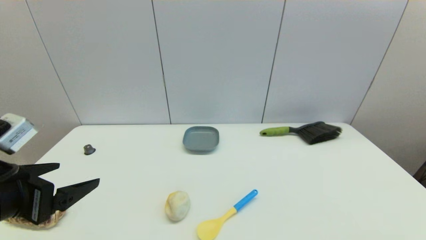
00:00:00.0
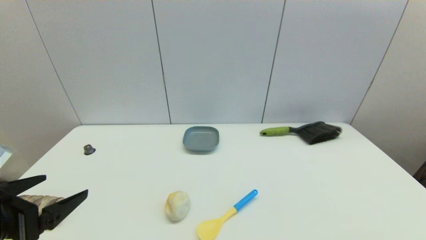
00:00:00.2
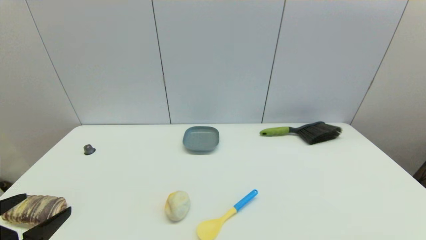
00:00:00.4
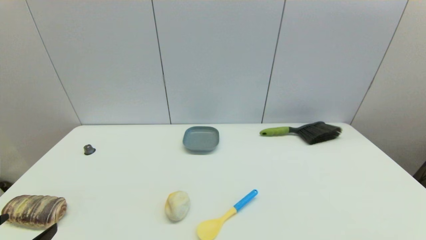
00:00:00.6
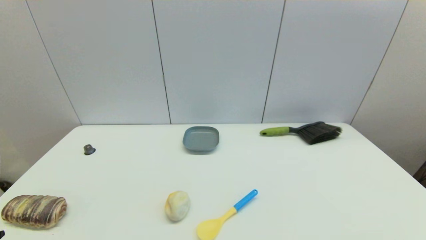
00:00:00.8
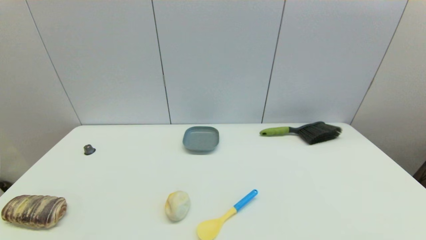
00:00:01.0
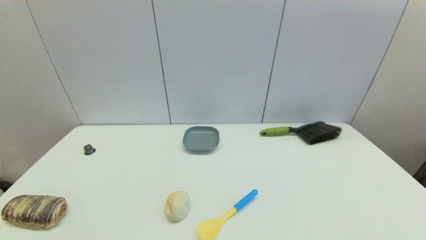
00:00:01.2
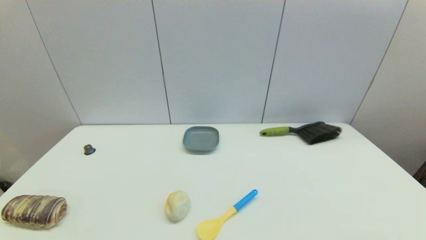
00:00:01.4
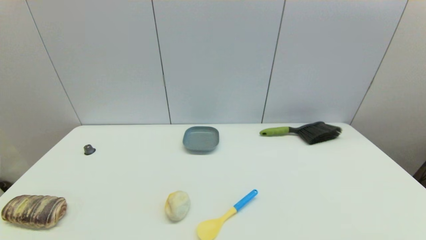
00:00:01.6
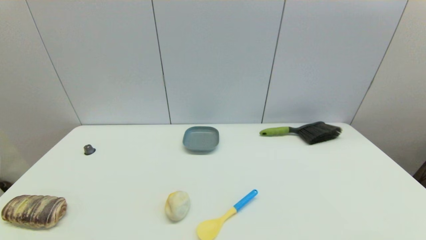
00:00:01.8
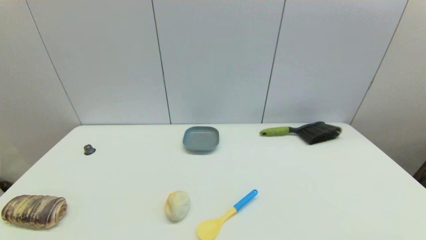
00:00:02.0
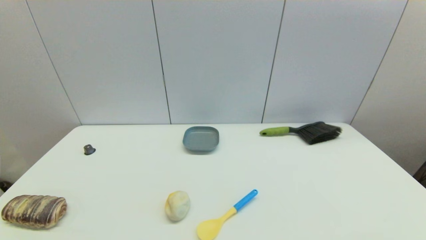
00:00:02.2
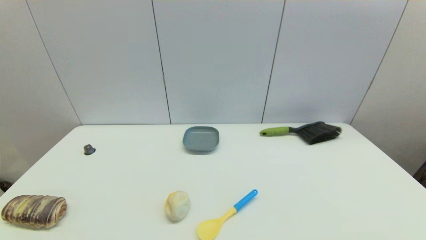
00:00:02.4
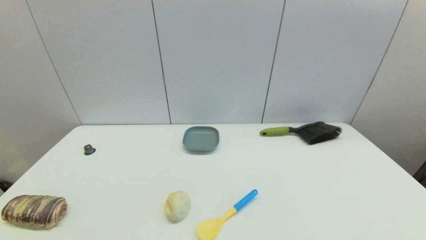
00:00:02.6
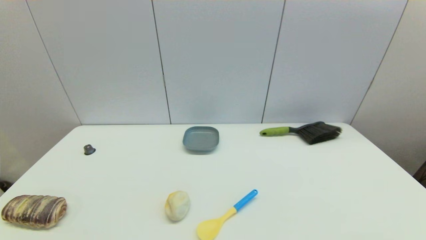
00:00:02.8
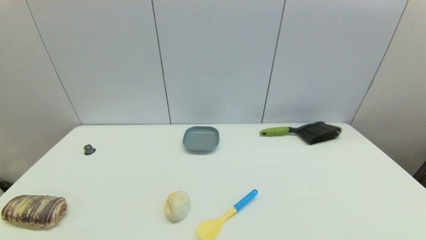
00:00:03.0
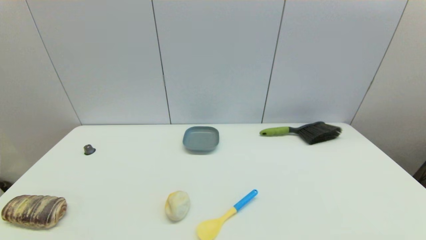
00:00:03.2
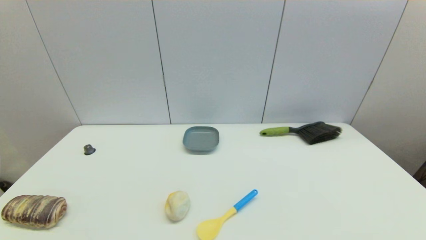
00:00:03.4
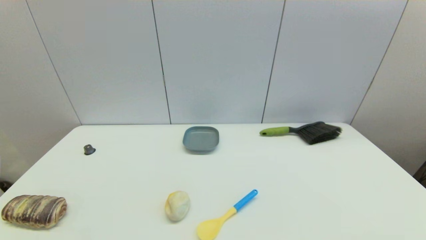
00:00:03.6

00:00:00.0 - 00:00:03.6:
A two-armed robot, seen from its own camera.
00:00:00.0 - 00:00:01.8: The left gripper shifts about 20 cm downward and backward.
00:00:01.8 - 00:00:03.6: Both grippers stay about where they are.
